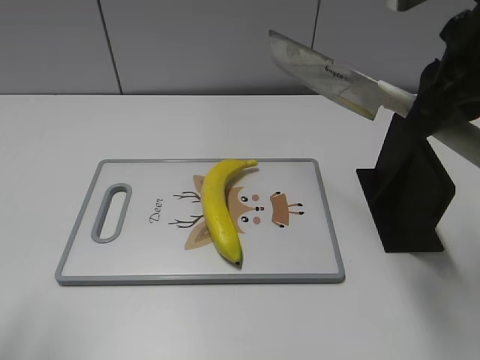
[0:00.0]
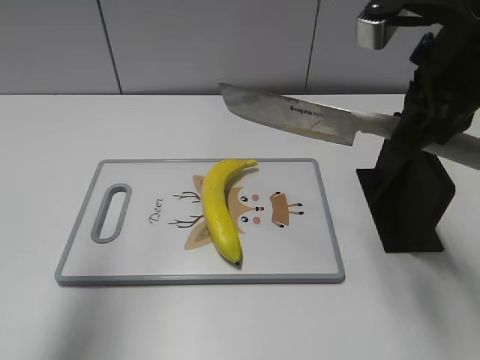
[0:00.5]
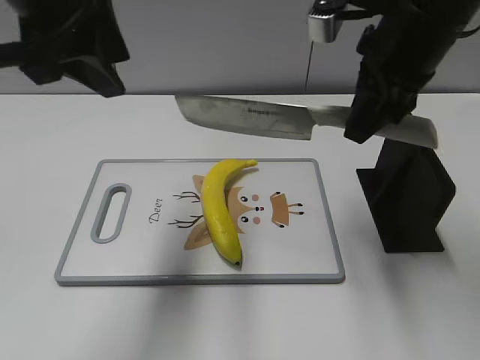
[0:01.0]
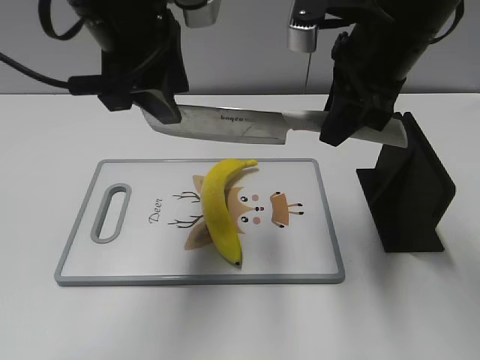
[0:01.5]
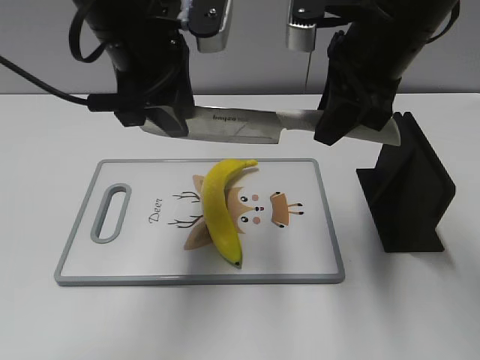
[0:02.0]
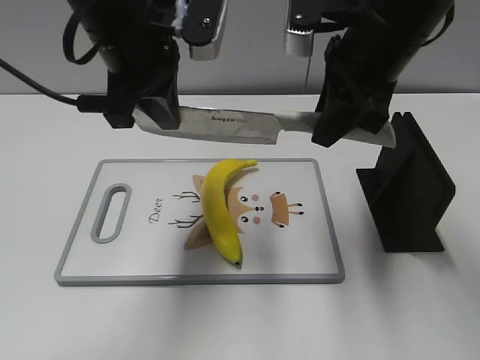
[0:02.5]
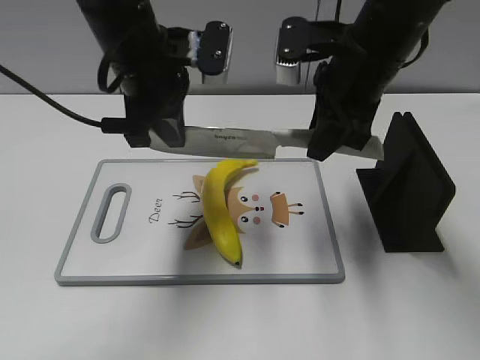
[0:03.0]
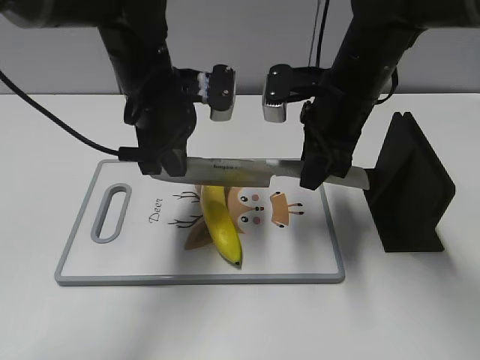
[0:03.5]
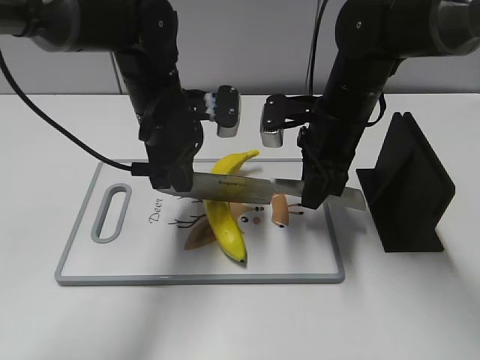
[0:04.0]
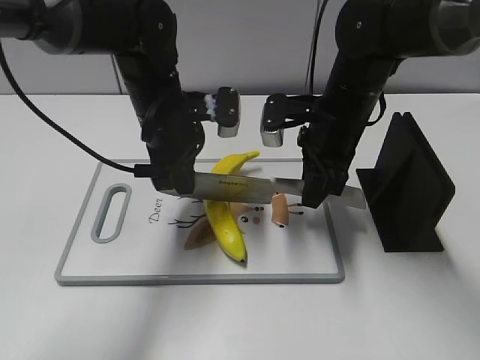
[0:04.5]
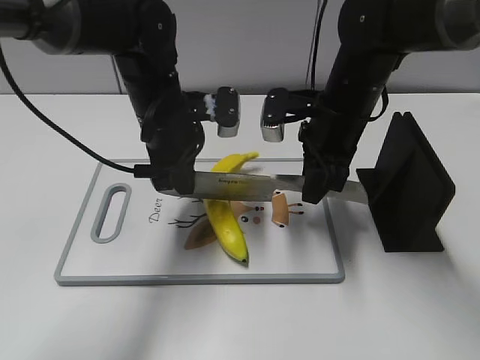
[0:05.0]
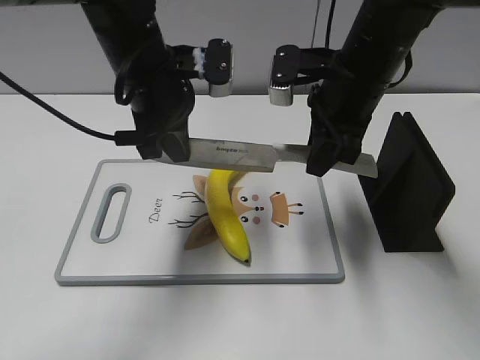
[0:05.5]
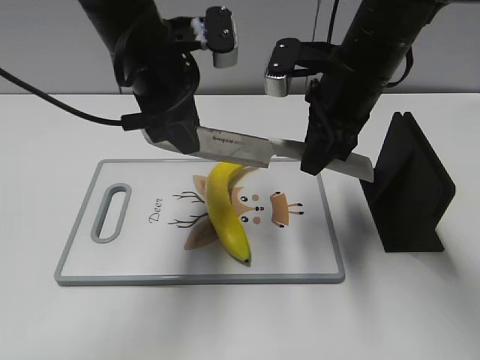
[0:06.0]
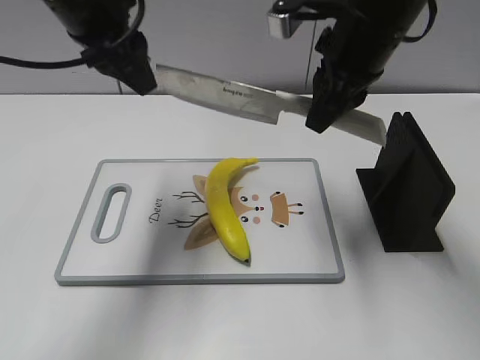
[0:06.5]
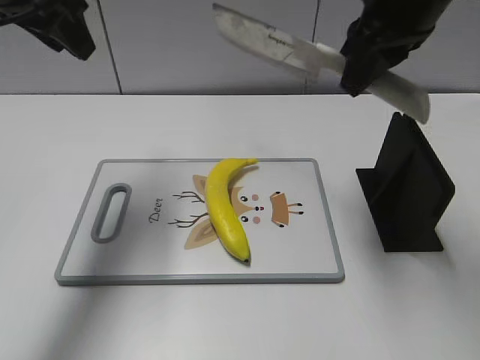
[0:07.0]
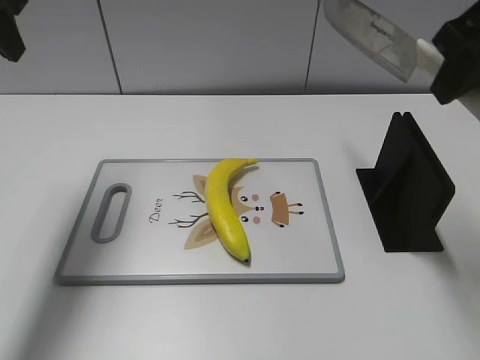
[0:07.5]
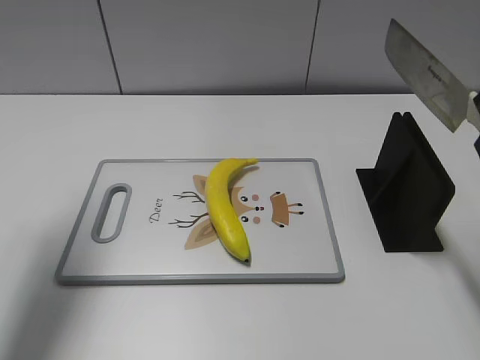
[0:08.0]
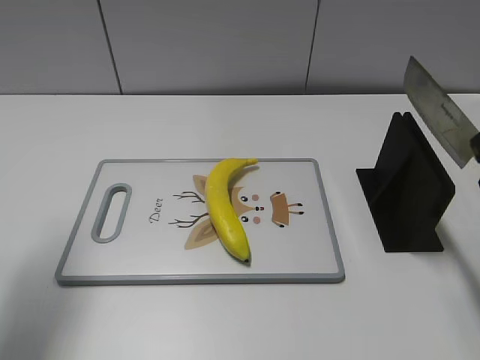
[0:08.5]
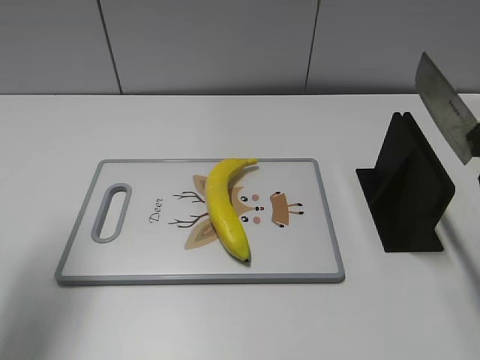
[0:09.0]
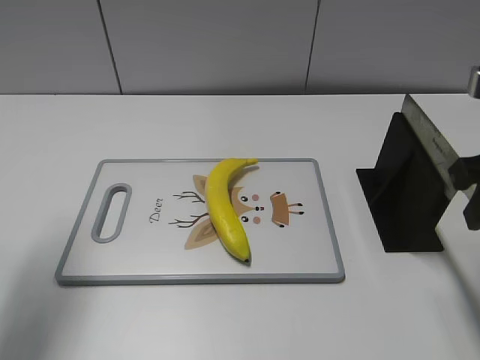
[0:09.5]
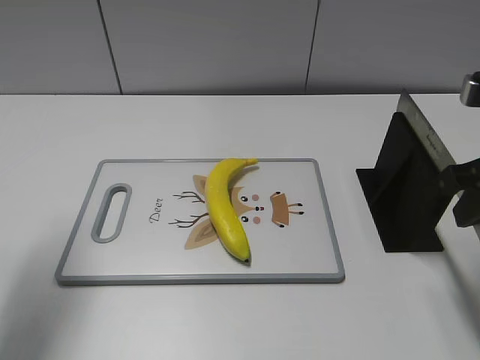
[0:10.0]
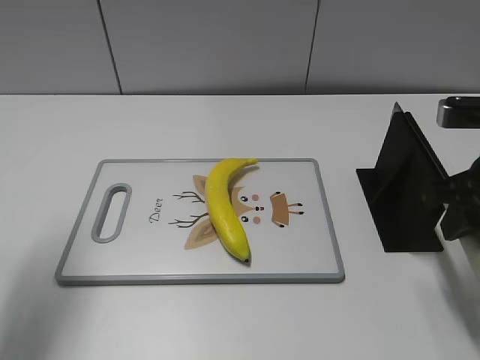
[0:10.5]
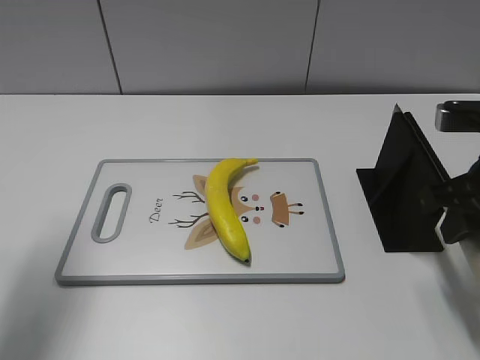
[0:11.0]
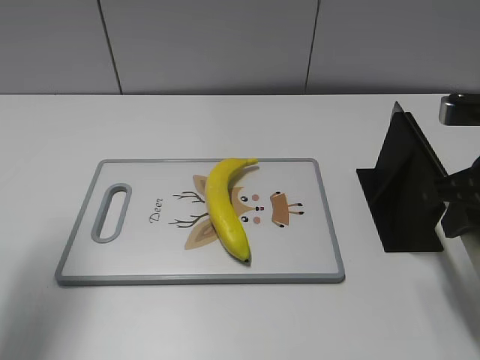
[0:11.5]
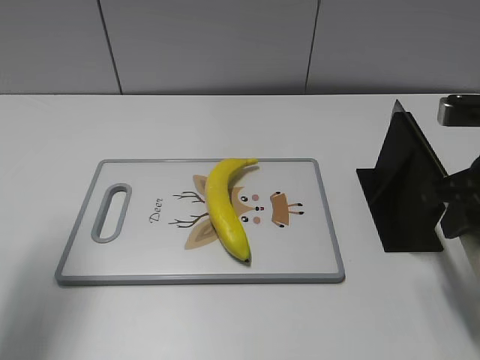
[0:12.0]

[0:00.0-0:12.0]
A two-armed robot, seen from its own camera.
Task of the whole recording: cut plastic banana.
Step, 0:00.0 to 0:05.5: Hold the blade with your left hand.
Step, 0:06.0 to 0:08.0: Cut the banana with your right hand.
0:00.0 to 0:02.0: The left gripper moves forward and to the right, roughly 30 cm, while the right gripper shifts approximately 10 cm to the left and forward.
0:02.0 to 0:04.0: Both grippers travel together downward, some 10 cm. The left gripper closes.
0:04.0 to 0:06.0: Both grippers move upward, about 10 cm. The left gripper opens.
0:06.0 to 0:08.0: The right gripper travels to the right, backward and upward by some 20 cm; the left gripper moves to the left, some 20 cm.
0:08.0 to 0:10.0: The right gripper goes some 10 cm downward. The left gripper moves roughly 5 cm.
0:10.0 to 0:12.0: The grippers move only a little.

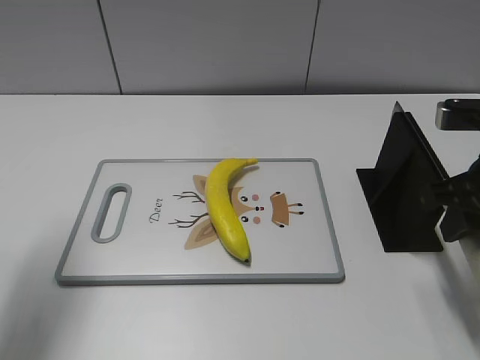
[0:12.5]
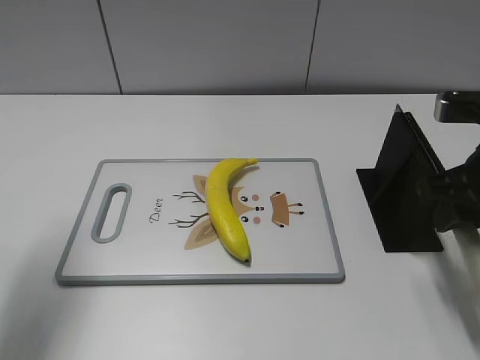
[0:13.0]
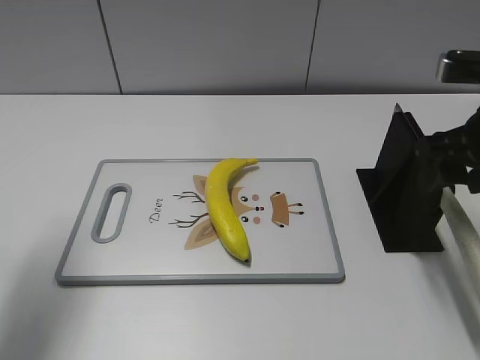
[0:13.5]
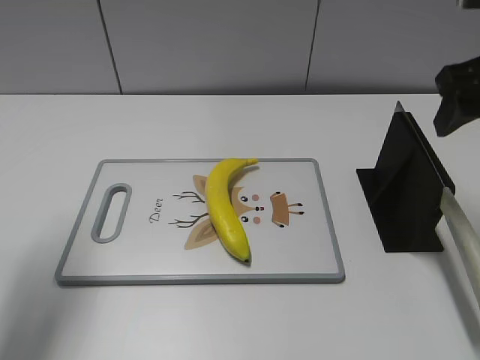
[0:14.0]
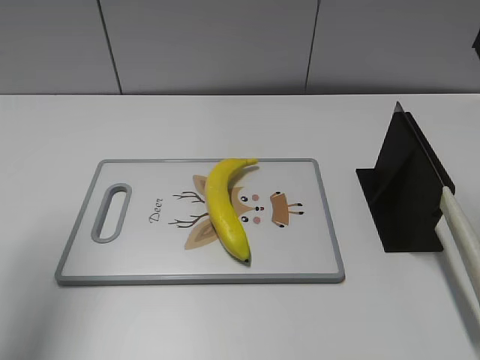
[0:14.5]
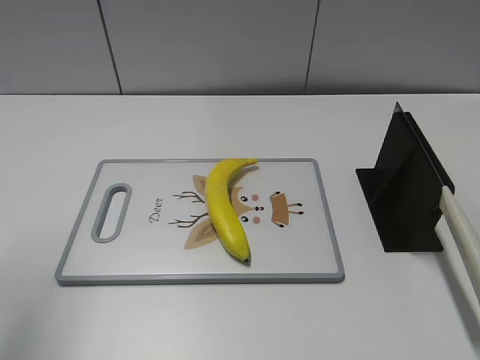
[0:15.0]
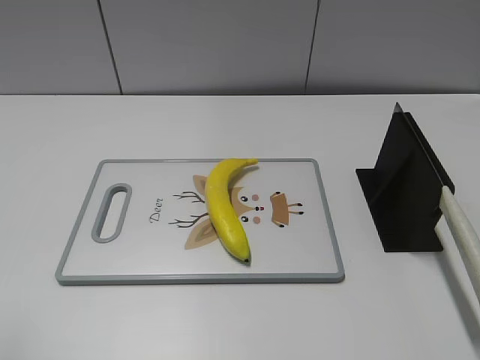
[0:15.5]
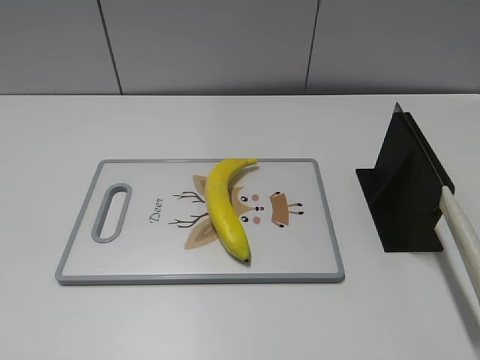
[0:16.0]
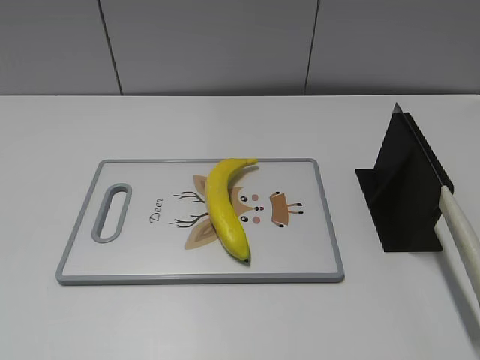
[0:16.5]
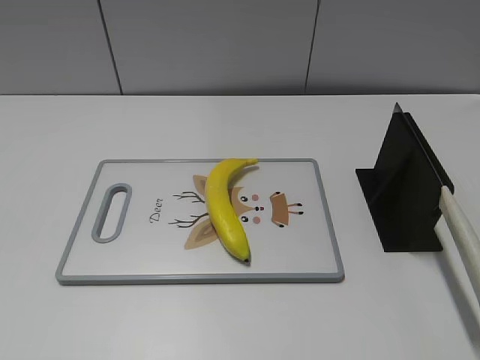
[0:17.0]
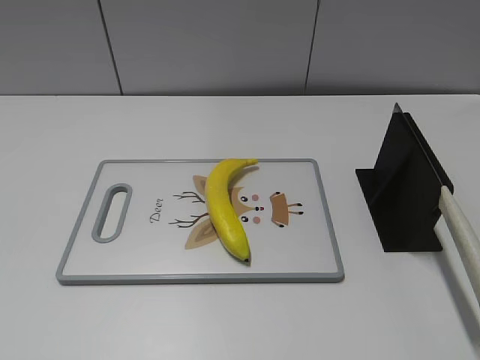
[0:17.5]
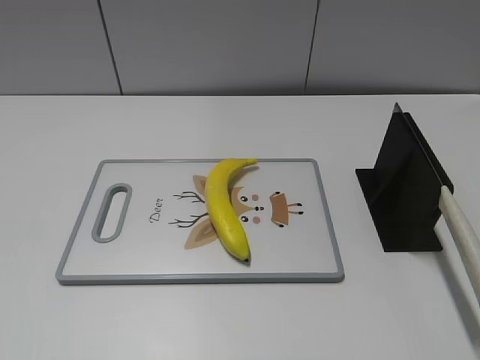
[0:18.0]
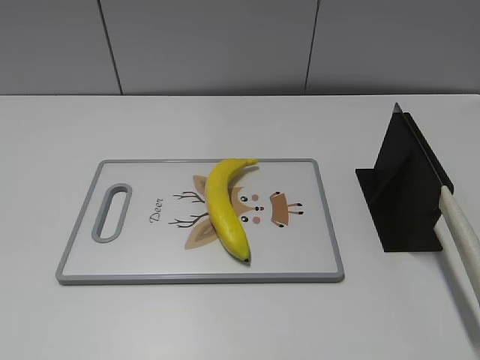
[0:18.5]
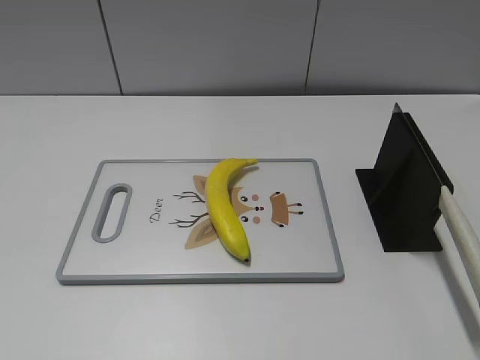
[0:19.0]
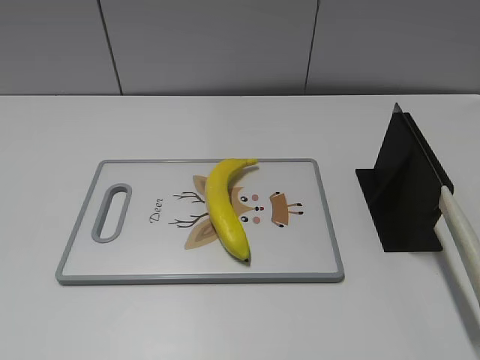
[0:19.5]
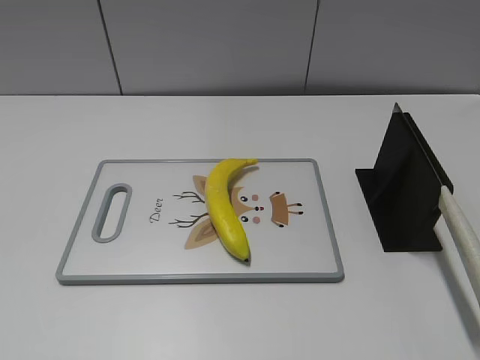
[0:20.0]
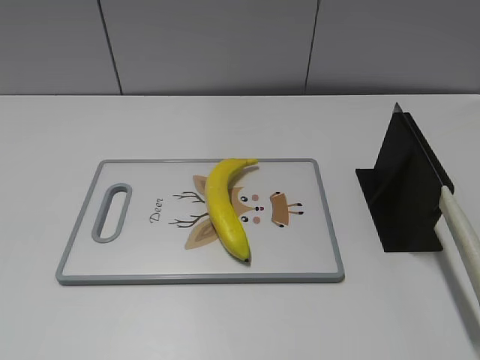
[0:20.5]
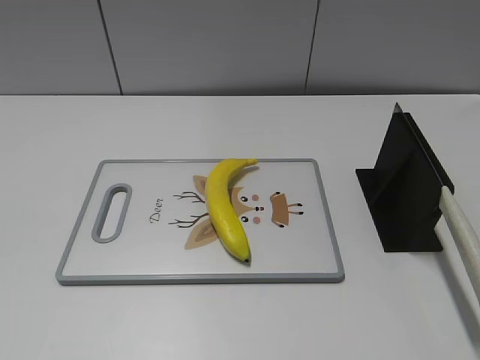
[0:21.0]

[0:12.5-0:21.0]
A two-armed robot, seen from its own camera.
Task of the whole recording: cut plastic banana.
Step, 0:12.5 to 0:18.5: Place the knife on the storage rack with your right hand.
0:12.5 to 0:14.5: The right gripper goes some 15 cm upward, and opens its fingers.
0:14.5 to 0:16.5: The two grippers go approximately 20 cm backward.
